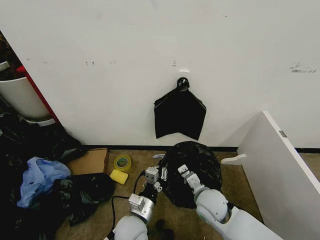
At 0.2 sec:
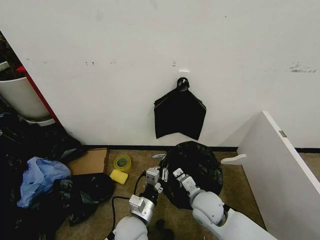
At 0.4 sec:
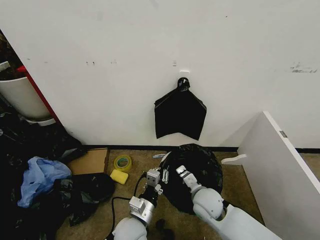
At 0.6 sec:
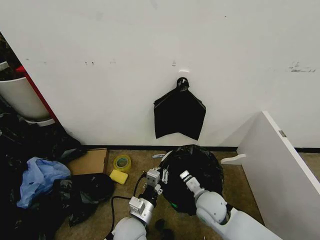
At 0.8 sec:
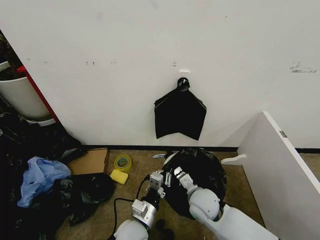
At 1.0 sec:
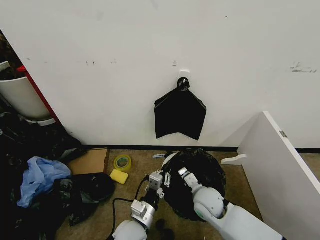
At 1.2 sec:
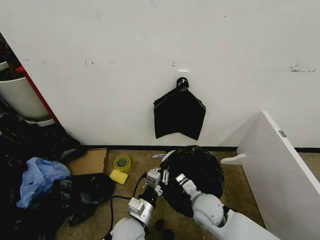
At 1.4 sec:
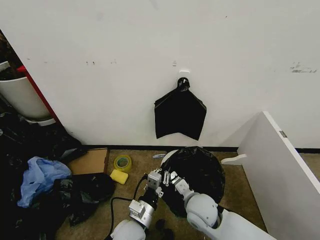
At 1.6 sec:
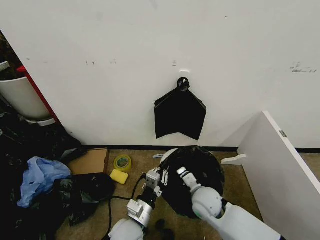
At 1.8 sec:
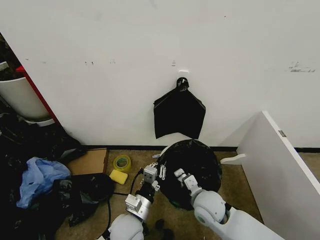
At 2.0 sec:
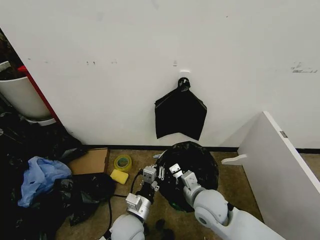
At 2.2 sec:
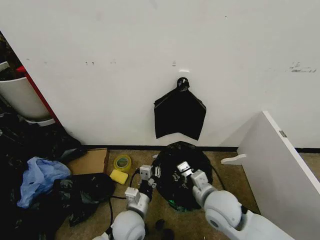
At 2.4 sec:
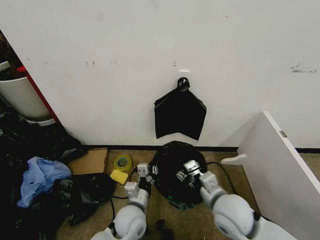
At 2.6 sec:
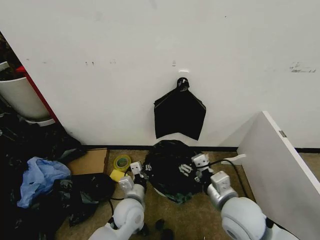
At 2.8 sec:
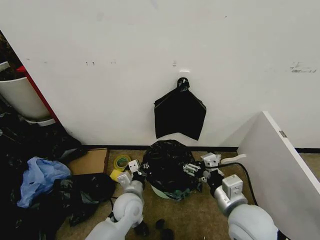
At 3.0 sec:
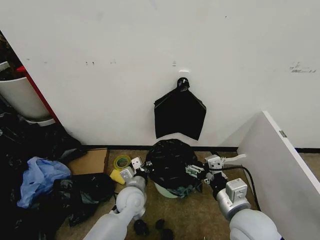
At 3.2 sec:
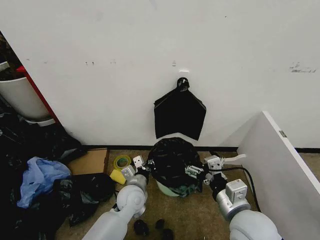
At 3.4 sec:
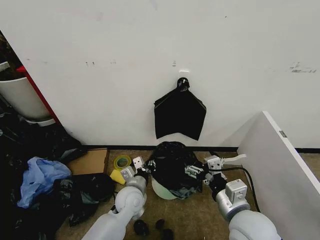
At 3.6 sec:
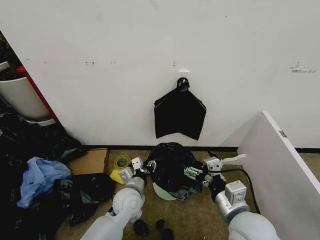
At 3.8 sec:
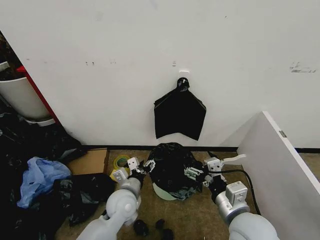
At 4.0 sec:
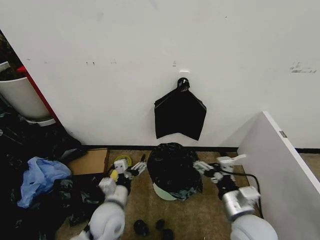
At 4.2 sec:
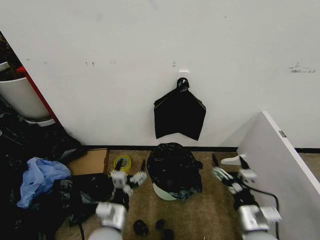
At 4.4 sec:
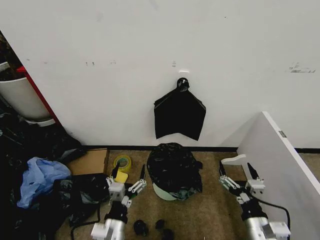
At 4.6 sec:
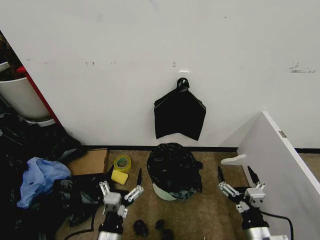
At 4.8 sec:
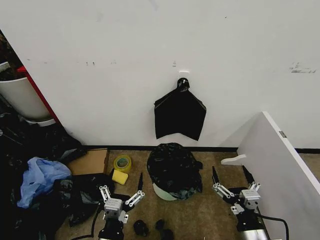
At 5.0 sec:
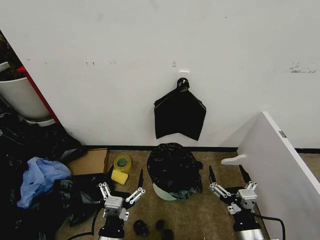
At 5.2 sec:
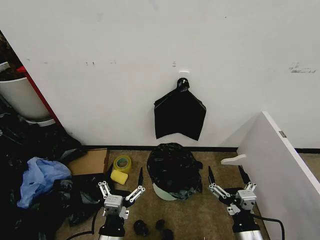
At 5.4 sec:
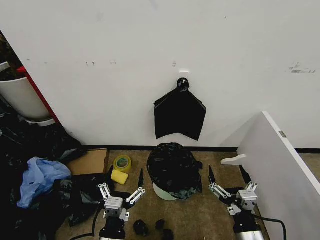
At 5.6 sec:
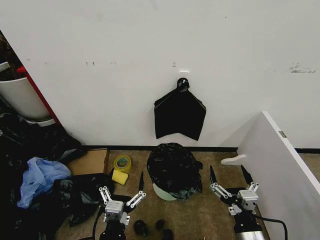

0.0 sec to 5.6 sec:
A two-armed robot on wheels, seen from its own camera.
Task of the whole recording: Place the garbage bag over the trash bin.
0.0 sec to 1.4 sec: There are only small adjustments of the grippers.
1.4 sec to 2.8 sec: The left gripper shifts some 10 cm forward, while the right gripper is displaced upward, to the right and backward by some 15 cm, and opens.
2.8 sec to 4.2 sec: The left gripper travels backward by roughly 10 cm, and opens. Meanwhile the right gripper heads downward, covering roughly 5 cm.
4.2 sec to 5.6 sec: The right gripper is displaced backward by about 5 cm. The left gripper travels backward by some 10 cm.
